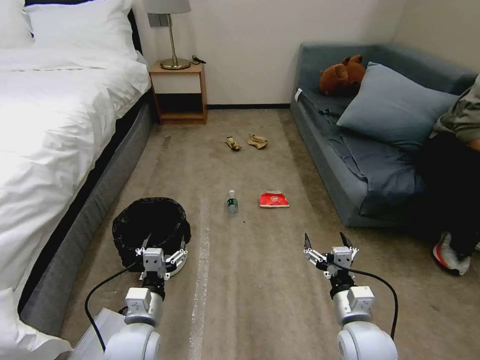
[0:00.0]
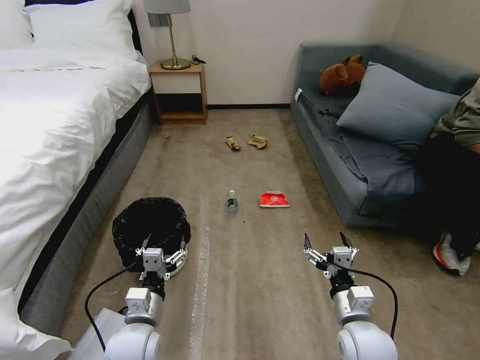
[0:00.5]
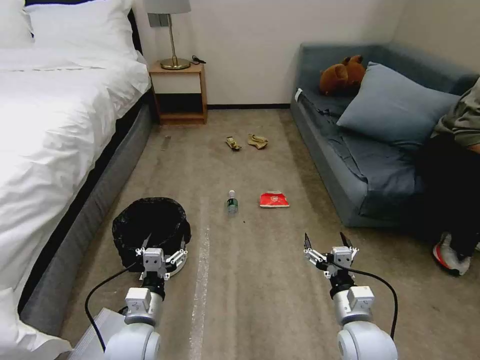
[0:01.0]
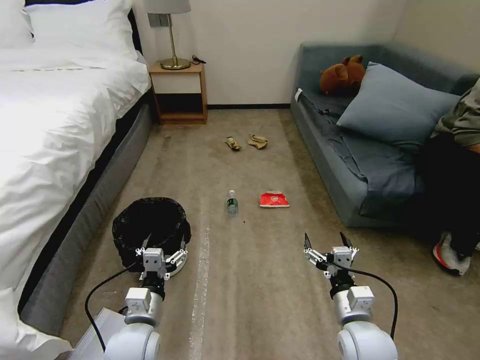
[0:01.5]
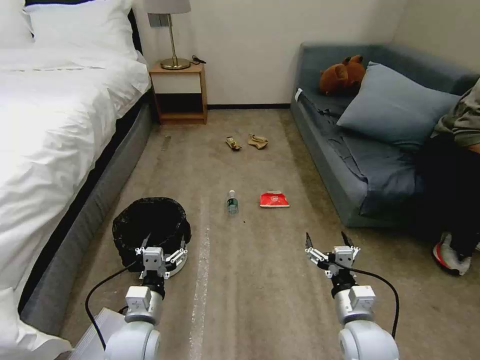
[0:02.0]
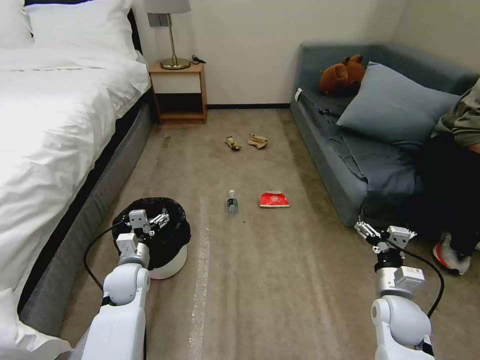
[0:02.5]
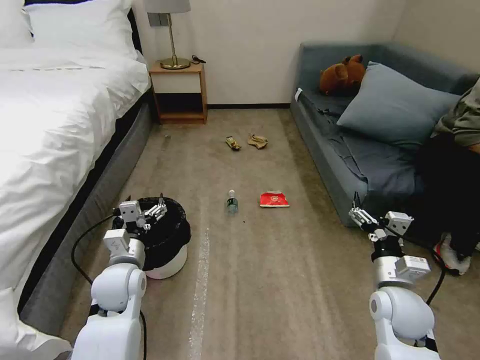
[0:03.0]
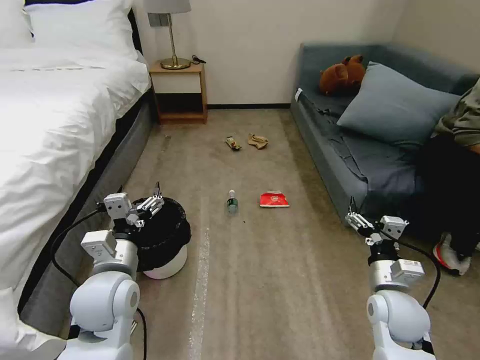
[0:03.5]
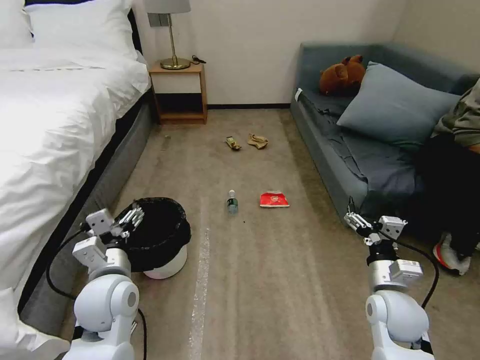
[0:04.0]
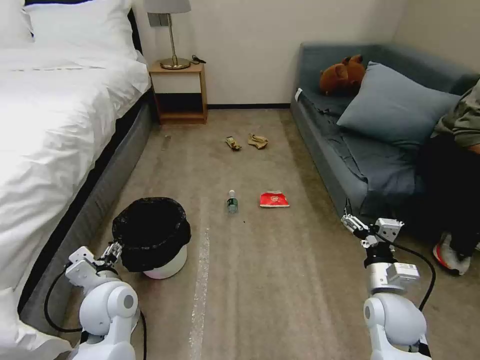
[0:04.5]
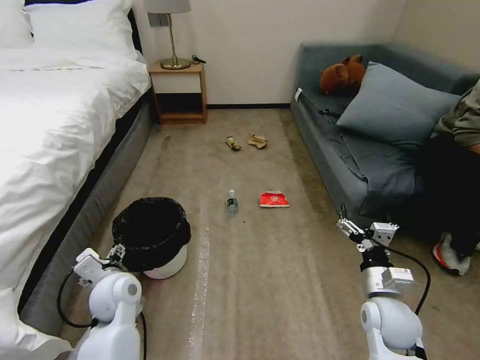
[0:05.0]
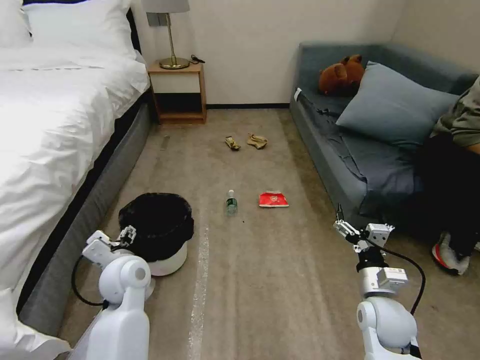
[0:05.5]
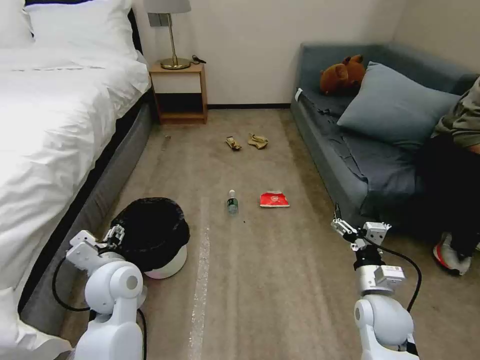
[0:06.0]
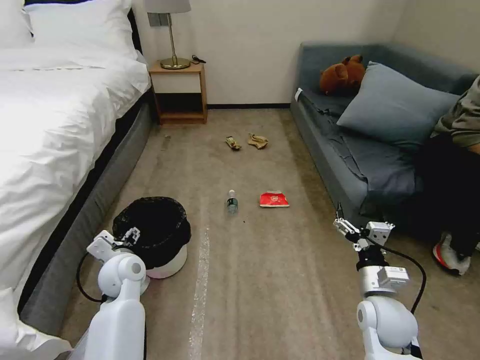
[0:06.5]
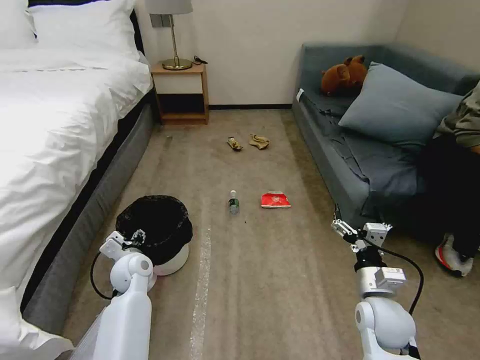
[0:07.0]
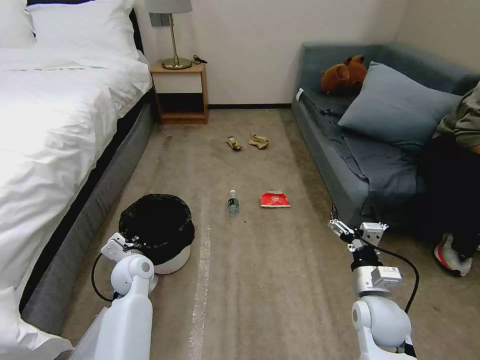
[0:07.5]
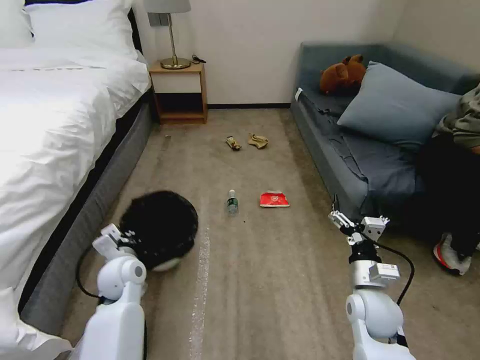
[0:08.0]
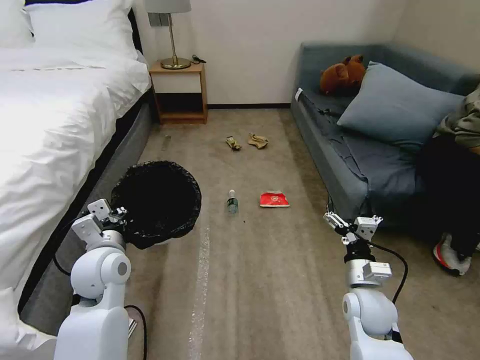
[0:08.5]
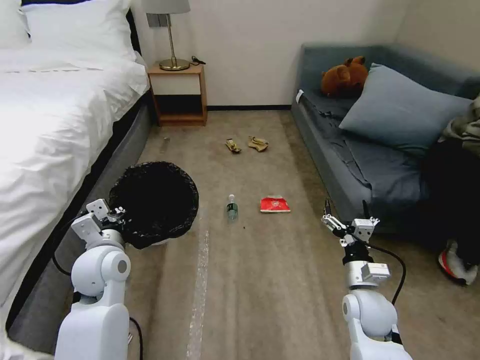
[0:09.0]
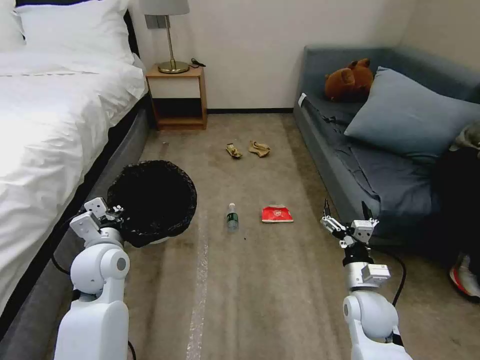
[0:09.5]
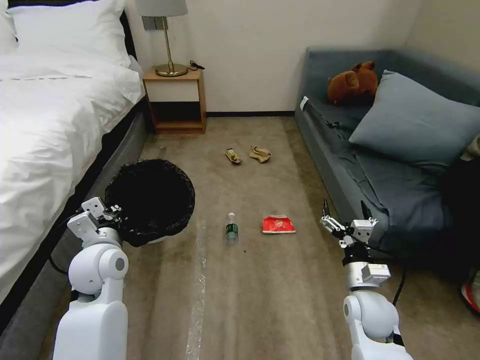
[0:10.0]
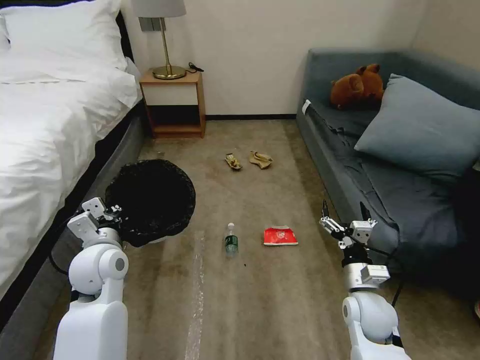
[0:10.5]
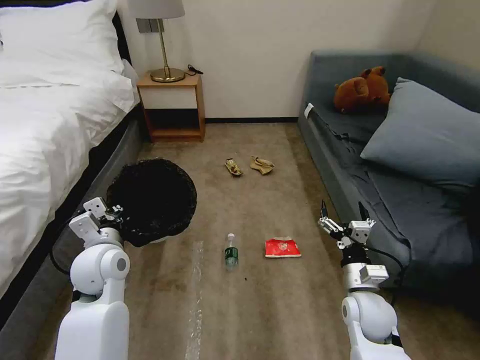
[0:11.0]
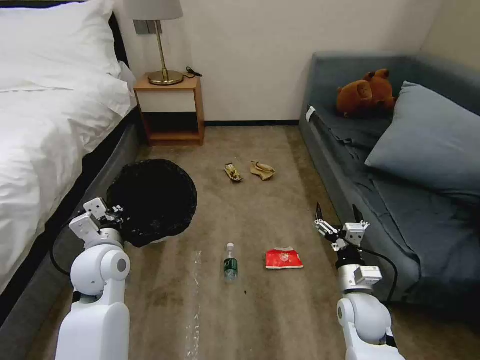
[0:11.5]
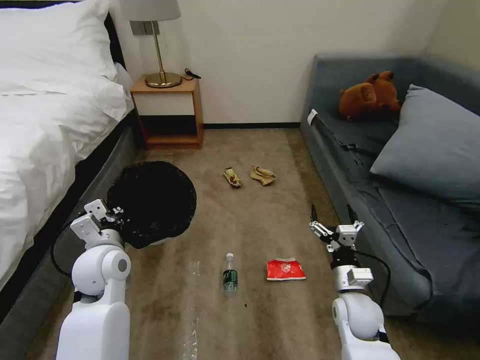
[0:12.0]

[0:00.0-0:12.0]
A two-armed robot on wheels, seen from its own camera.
Task of the whole recording: Pick up the trash bin, then pick up the garbage on the floor and place it into the trash bin.
0:02.0 to 0:04.0: The left gripper shifts some 10 cm upward, while the right gripper is displaced to the right by about 5 cm.
0:06.0 to 0:08.0: The left gripper shifts approximately 10 cm downward and forward, and closes up.
0:08.0 to 0:10.0: The left gripper moves upward, some 10 cm.

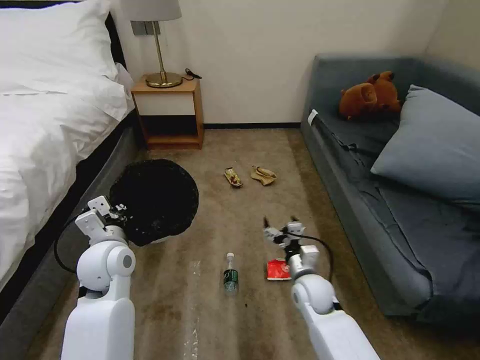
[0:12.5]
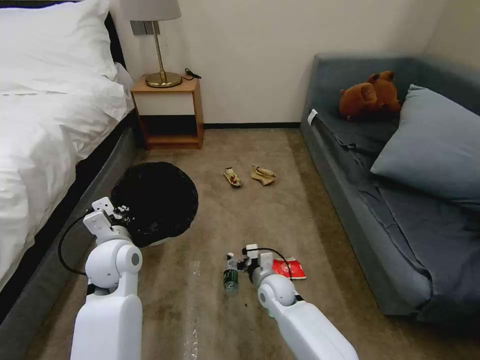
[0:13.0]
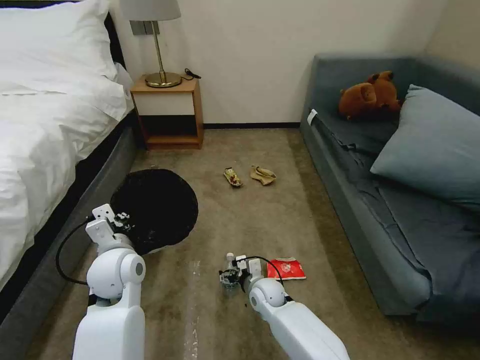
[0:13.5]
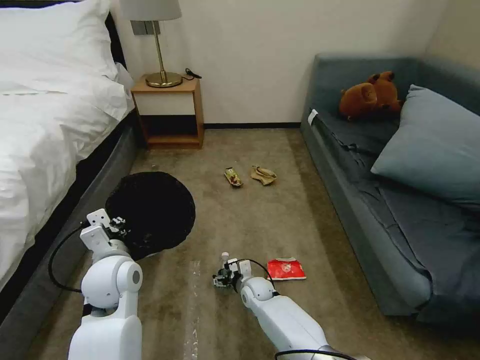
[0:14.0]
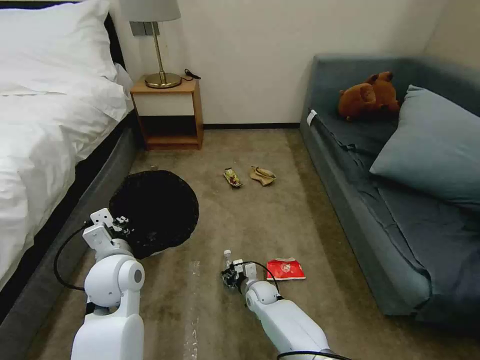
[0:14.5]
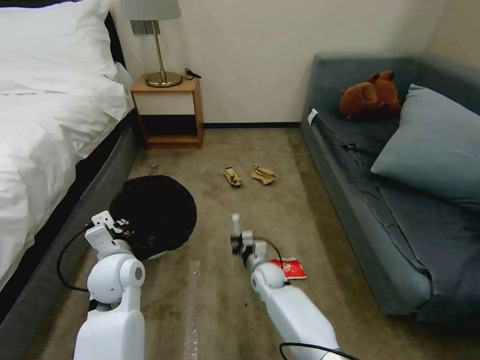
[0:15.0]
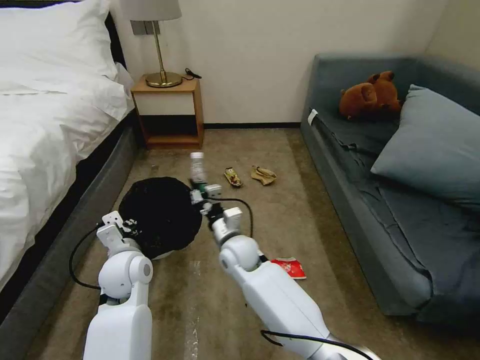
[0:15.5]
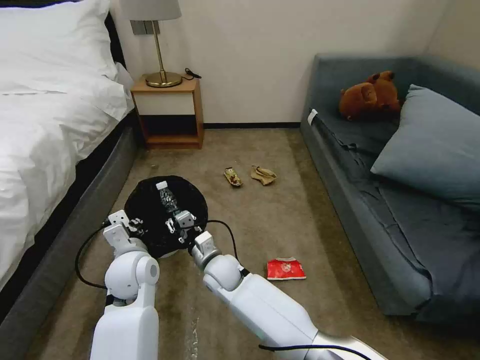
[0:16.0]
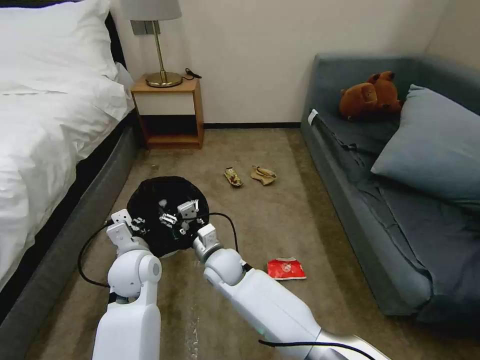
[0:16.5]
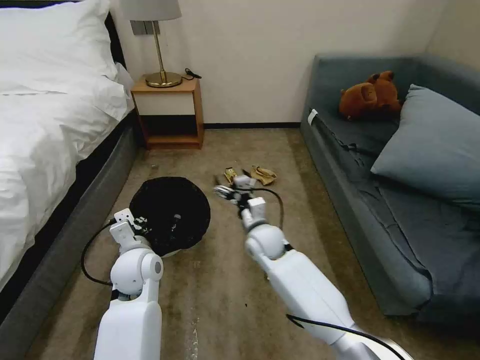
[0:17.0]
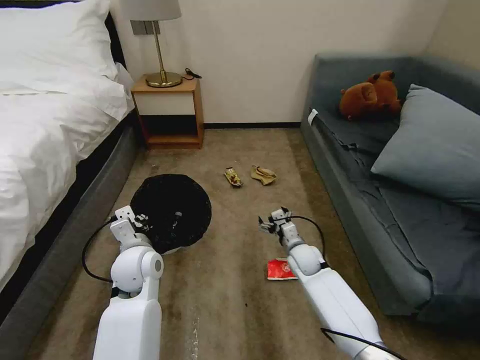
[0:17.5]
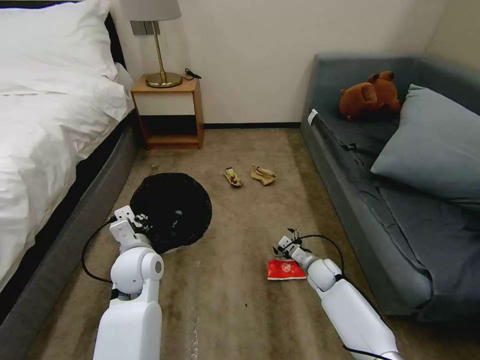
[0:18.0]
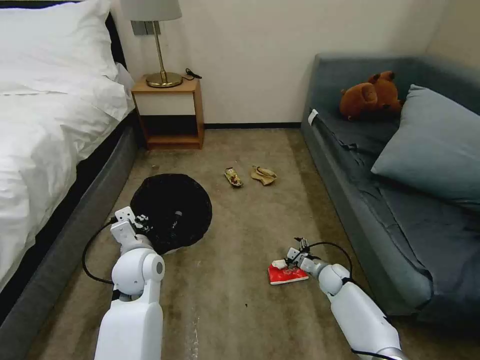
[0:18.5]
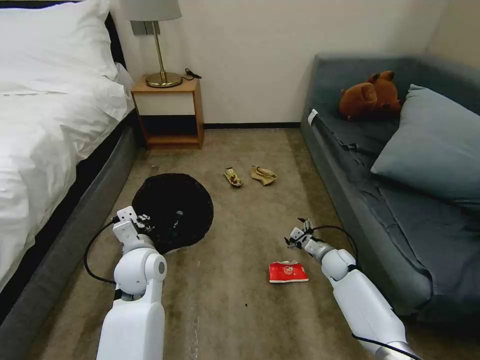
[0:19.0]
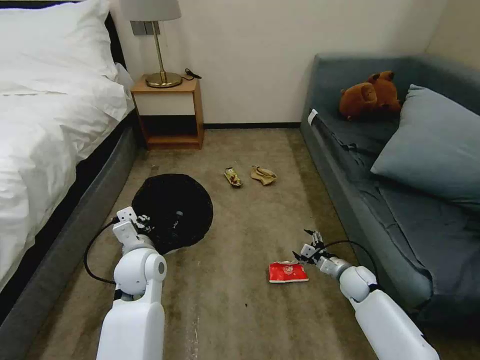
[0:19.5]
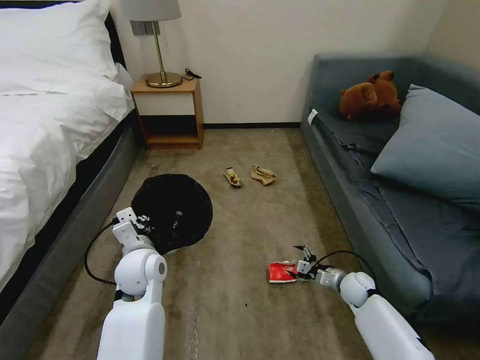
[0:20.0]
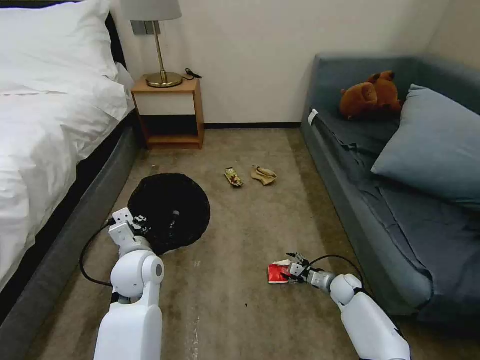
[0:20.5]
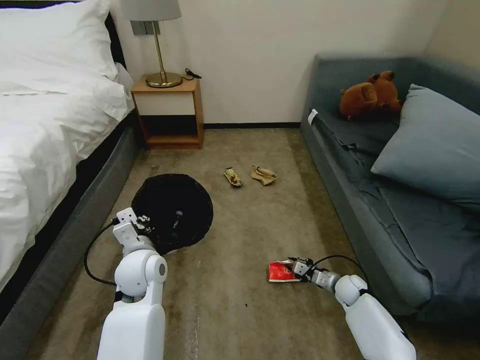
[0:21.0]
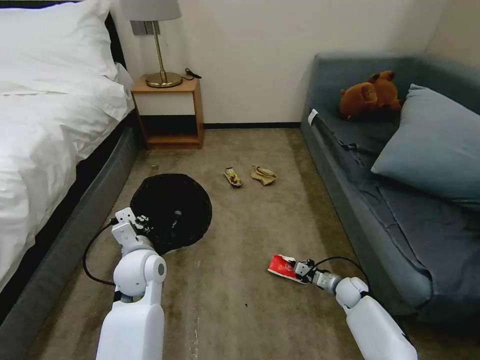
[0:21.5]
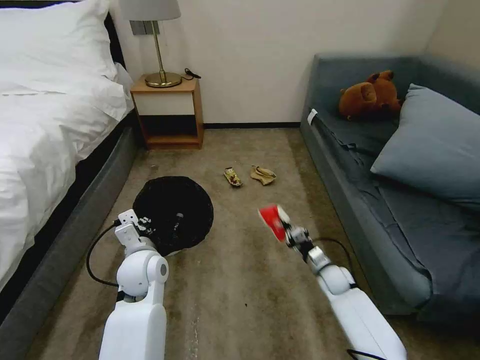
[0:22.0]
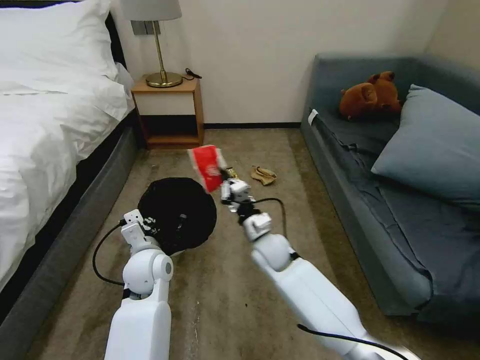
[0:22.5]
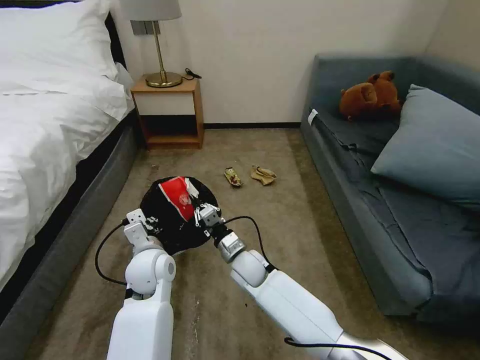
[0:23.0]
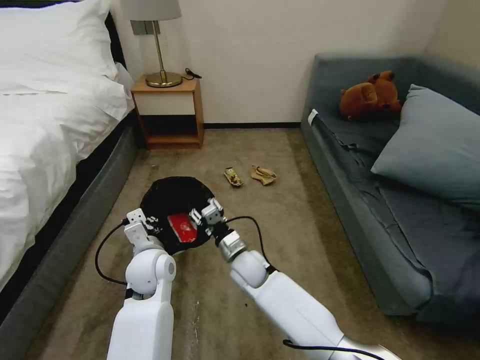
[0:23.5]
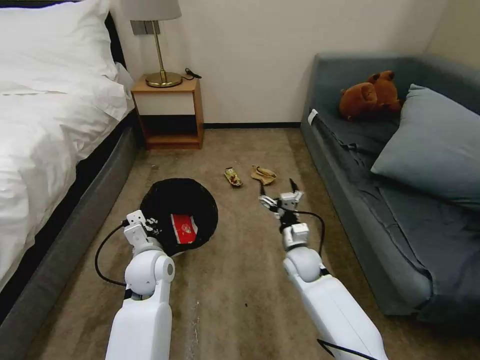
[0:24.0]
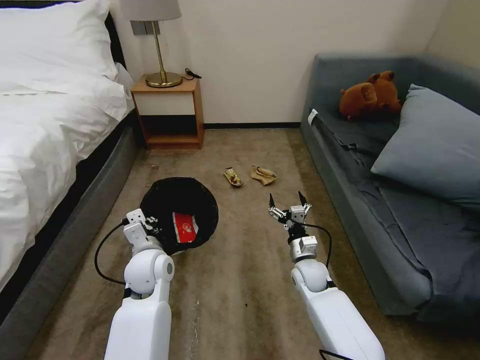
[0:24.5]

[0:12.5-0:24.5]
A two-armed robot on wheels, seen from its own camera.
Task of the whole recording: Pick up the trash bin, then pick up the garbage on the floor and place it into the trash bin.
0:12.5 to 0:14.5: The right gripper goes some 20 cm downward and to the left, and closes.
0:14.5 to 0:16.5: The right gripper moves upward and to the left, some 20 cm, and closes, then opens again.
0:16.5 to 0:18.5: The right gripper heads to the right and downward, covering roughly 40 cm.
0:18.5 to 0:20.5: The right gripper moves approximately 5 cm.
0:20.5 to 0:22.5: The right gripper travels to the left and upward by about 35 cm, and closes up.
0:22.5 to 0:24.5: The right gripper is displaced to the right and downward by approximately 15 cm, and opens.

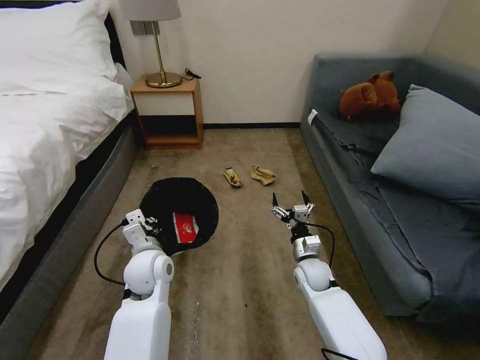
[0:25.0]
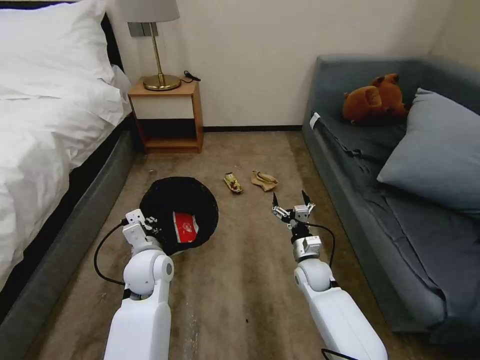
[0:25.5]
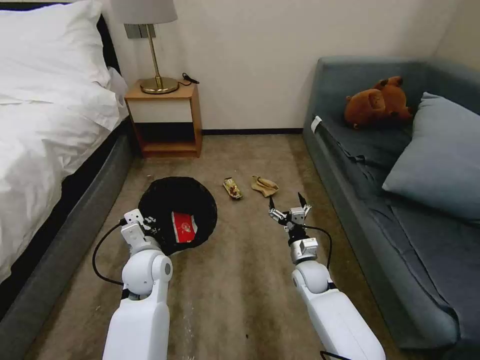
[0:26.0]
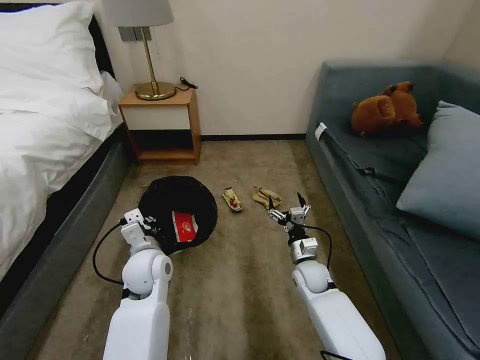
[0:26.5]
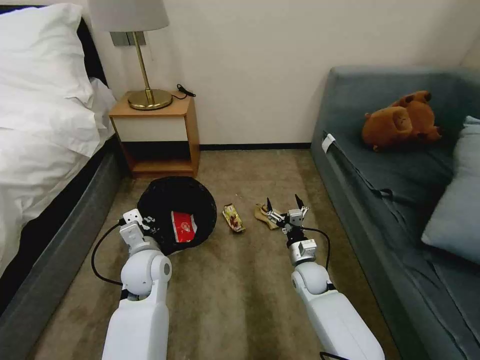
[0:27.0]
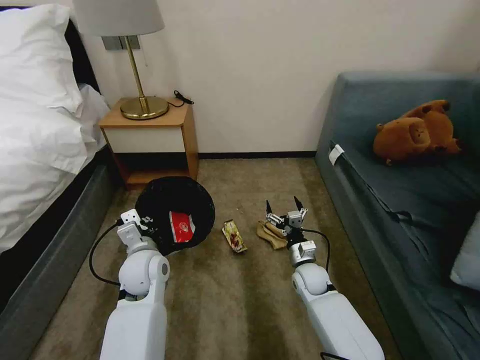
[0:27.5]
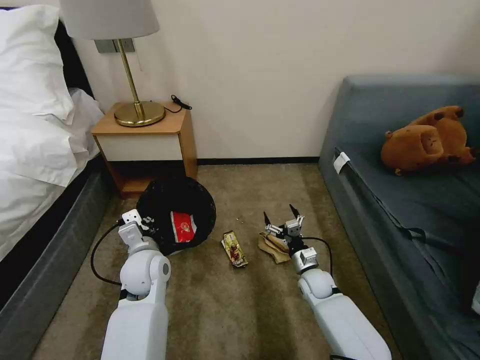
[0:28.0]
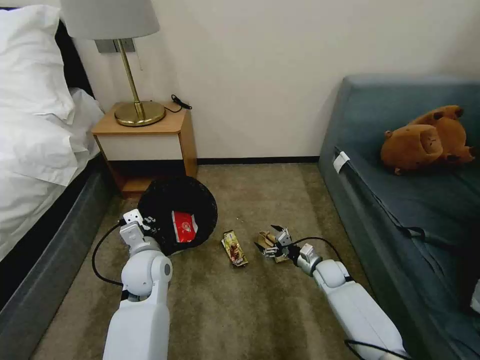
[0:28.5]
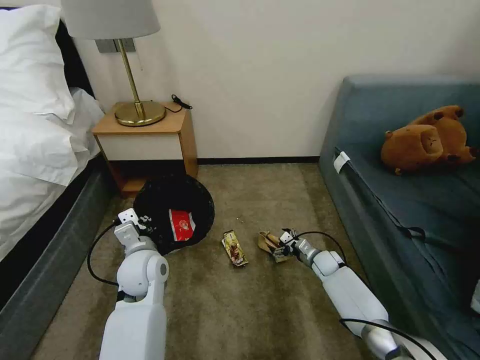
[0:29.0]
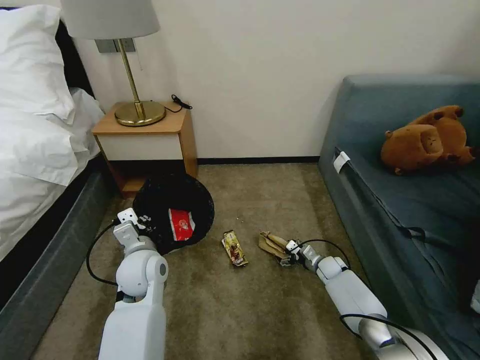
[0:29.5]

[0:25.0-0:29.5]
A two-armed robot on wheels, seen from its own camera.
Task of the whole recording: Pick up the trash bin, then pick up the garbage on the floor and place it into the trash bin.
0:27.0 to 0:29.5: The right gripper travels to the right, downward and forward by roughly 15 cm.
